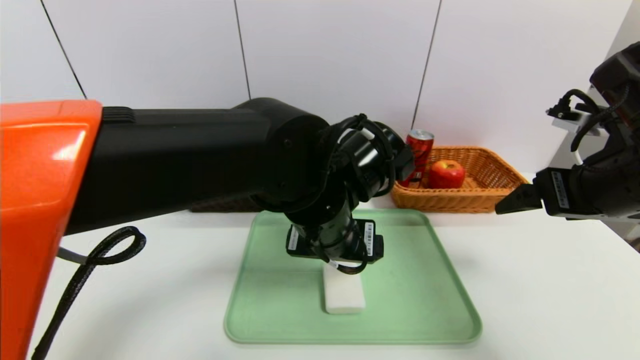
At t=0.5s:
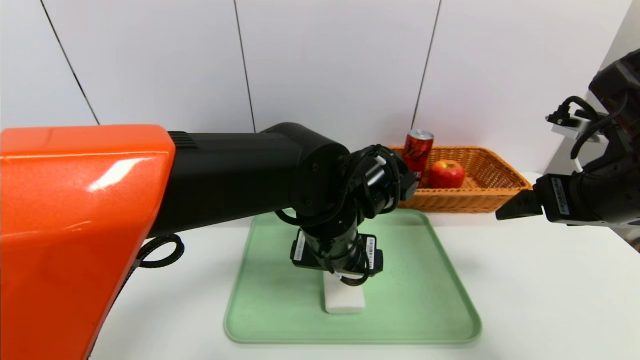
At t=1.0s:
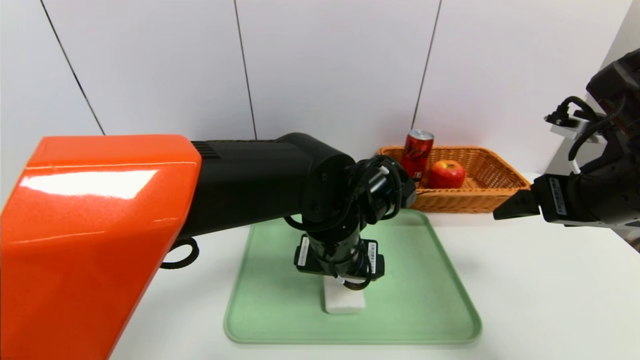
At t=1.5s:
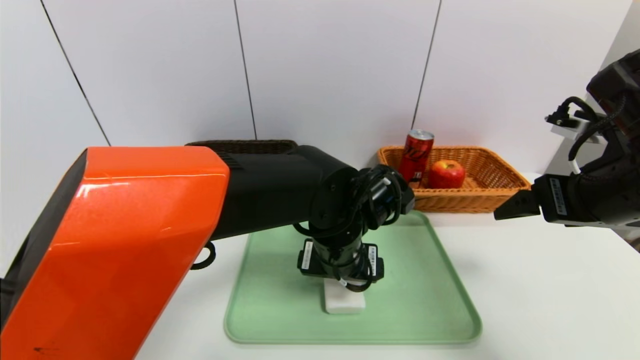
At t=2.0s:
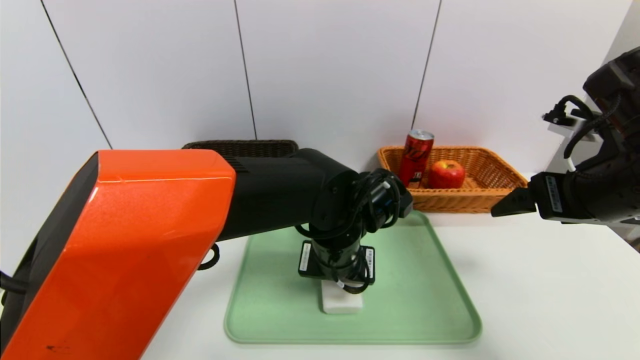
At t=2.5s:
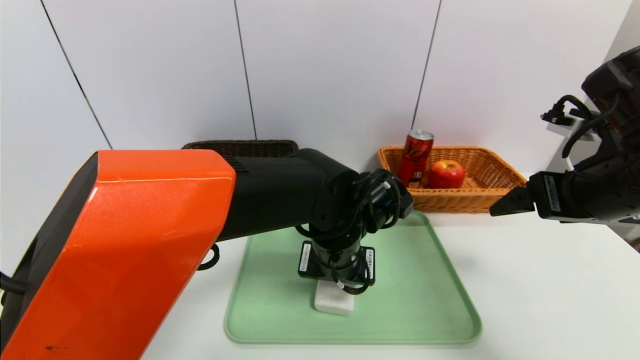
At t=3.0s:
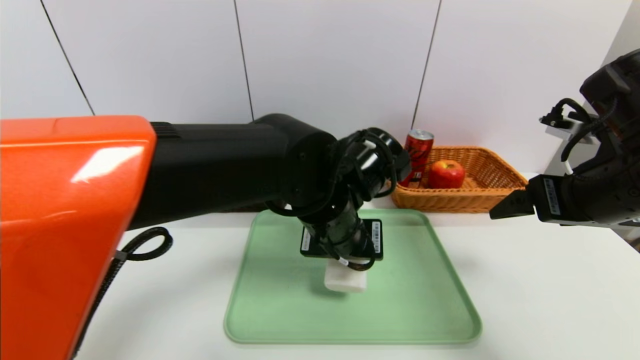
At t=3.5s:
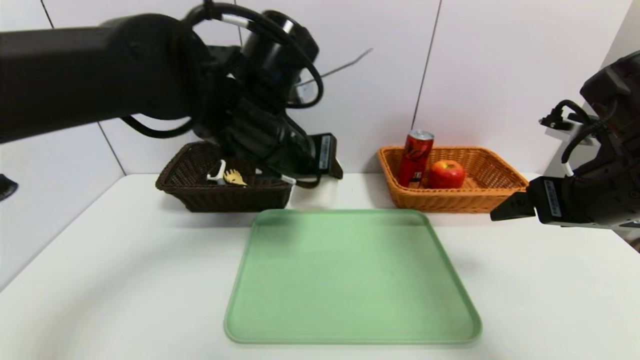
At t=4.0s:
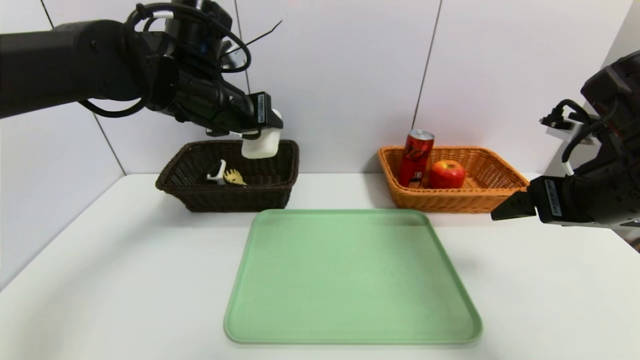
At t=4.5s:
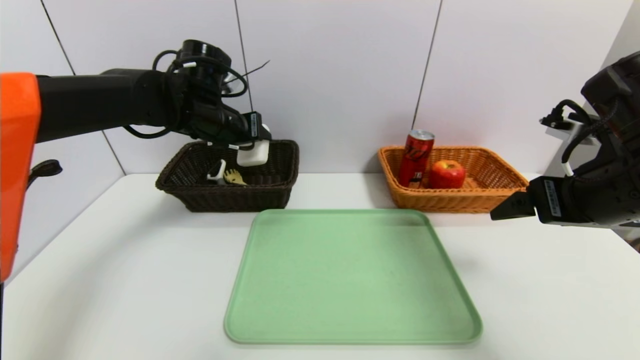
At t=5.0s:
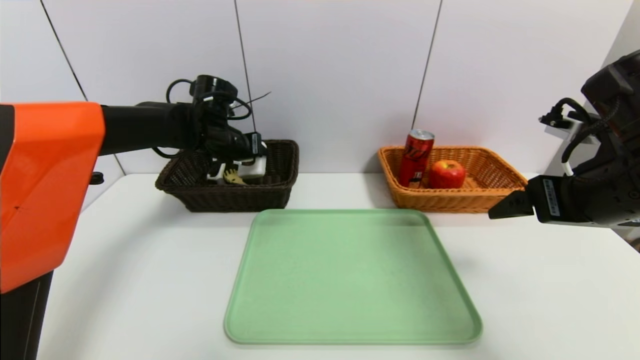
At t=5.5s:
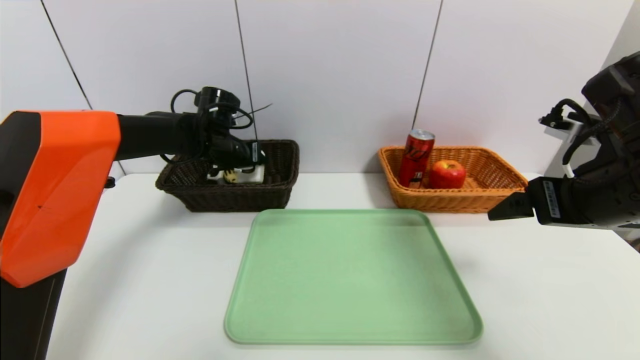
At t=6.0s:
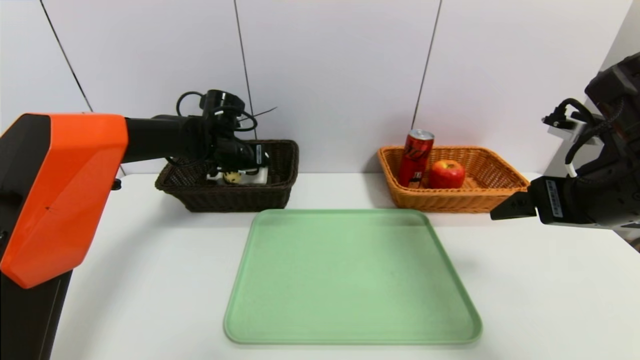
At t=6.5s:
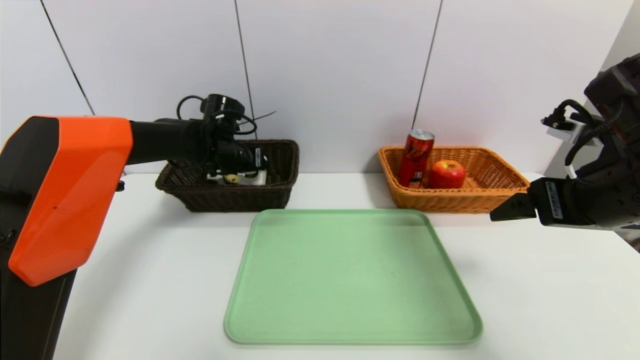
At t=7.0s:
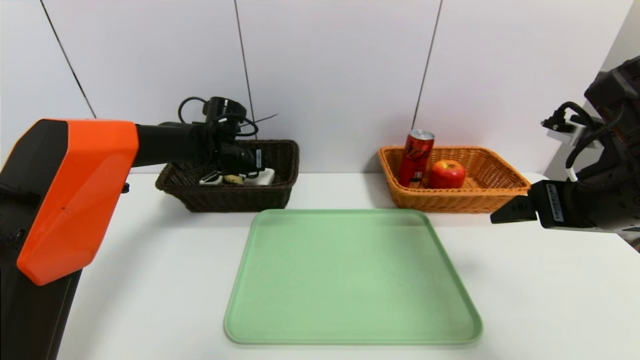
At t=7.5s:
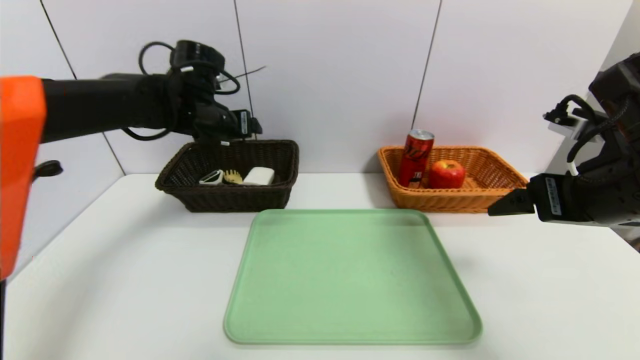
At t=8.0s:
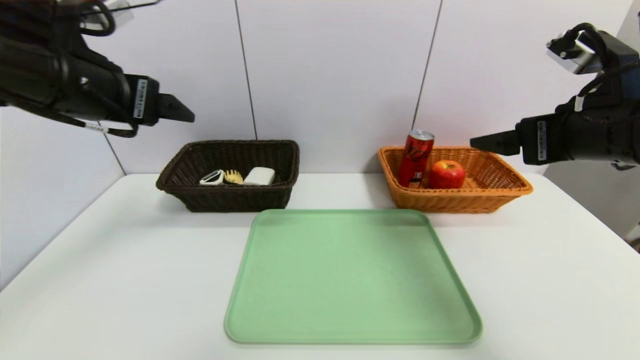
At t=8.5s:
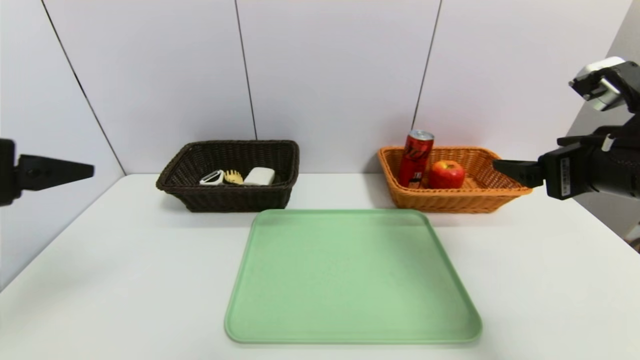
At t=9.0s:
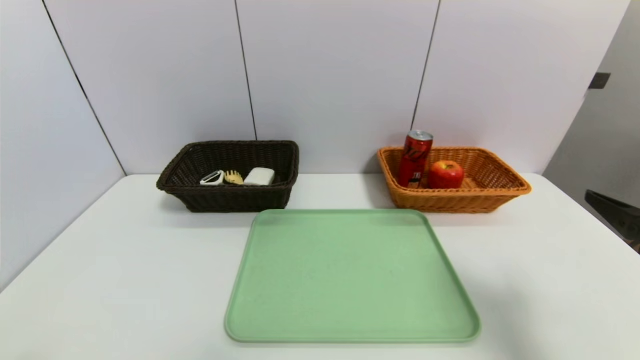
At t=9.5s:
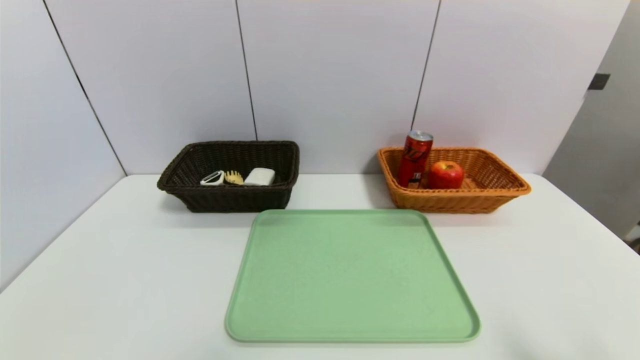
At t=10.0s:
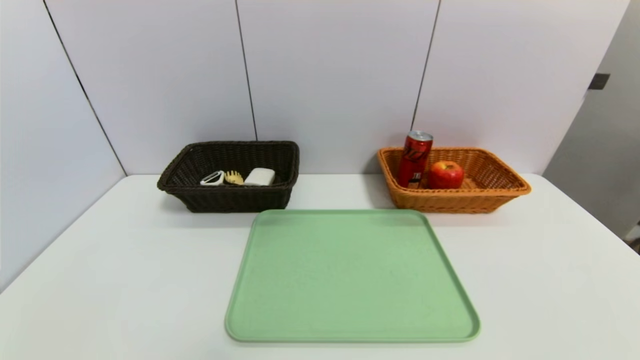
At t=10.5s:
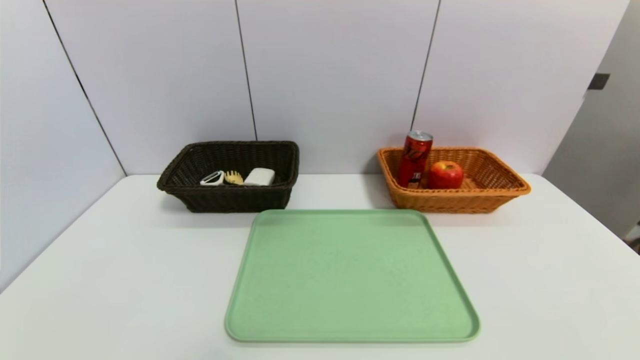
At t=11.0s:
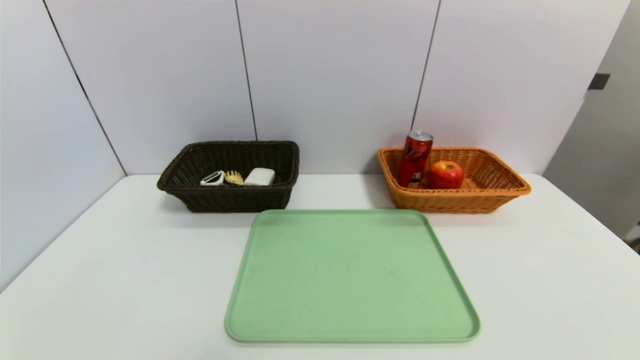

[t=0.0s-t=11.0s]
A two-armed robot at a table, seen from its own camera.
Task of the whole recording: place the food in the right basket with the right gripper, and place the non food items in the left basket with the left gripper.
Step, t=0.0s to t=7.0s: Grasp the soap and put it in the left basket.
t=0.0s to t=2.0s: The left gripper is displaced downward by some 5 cm, and closes its fingers.
t=2.0s to t=3.5s: The left gripper heads upward and to the left, covering about 15 cm.
t=3.5s to t=5.5s: The left gripper shifts some 25 cm forward, to the left and downward.
t=5.5s to t=7.5s: The left gripper goes about 10 cm upward, and opens up.
t=7.5s to t=9.0s: The left gripper goes roughly 40 cm backward; the right gripper goes some 10 cm backward and to the right.
t=9.0s to t=11.0s: The right gripper goes about 20 cm downward and backward.

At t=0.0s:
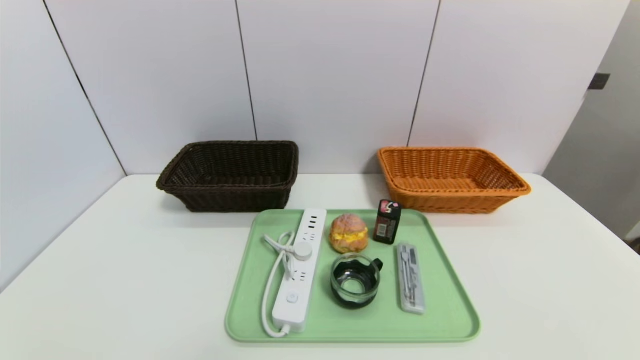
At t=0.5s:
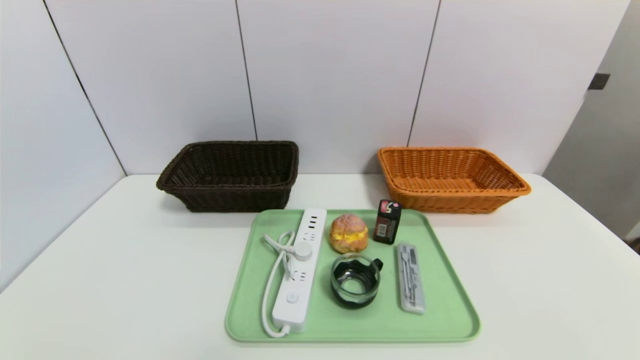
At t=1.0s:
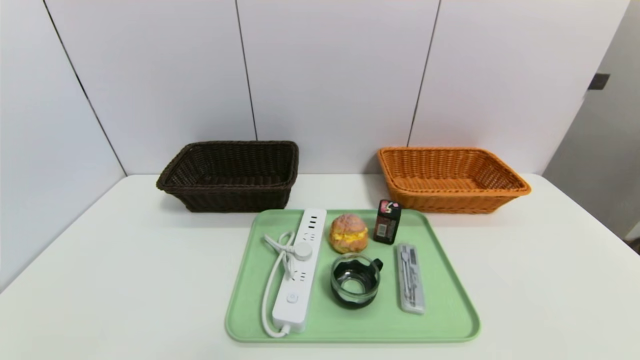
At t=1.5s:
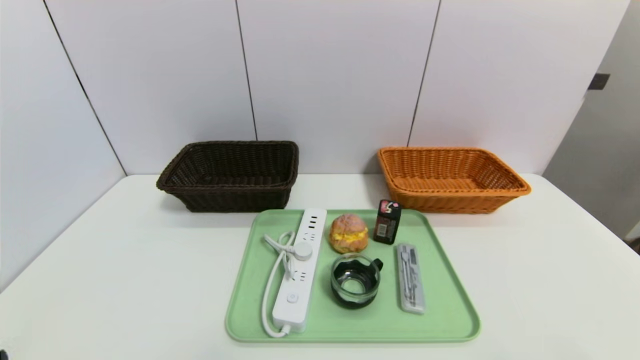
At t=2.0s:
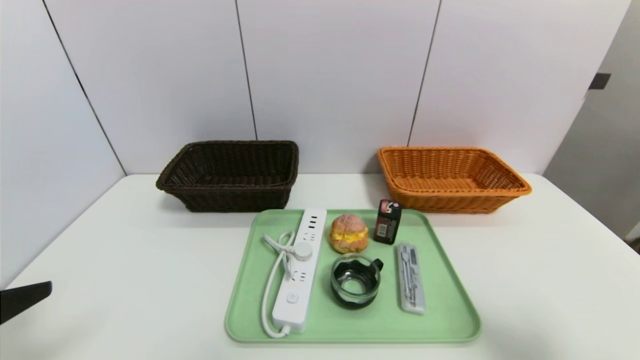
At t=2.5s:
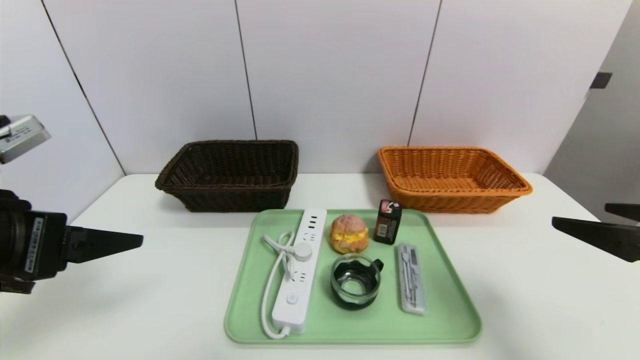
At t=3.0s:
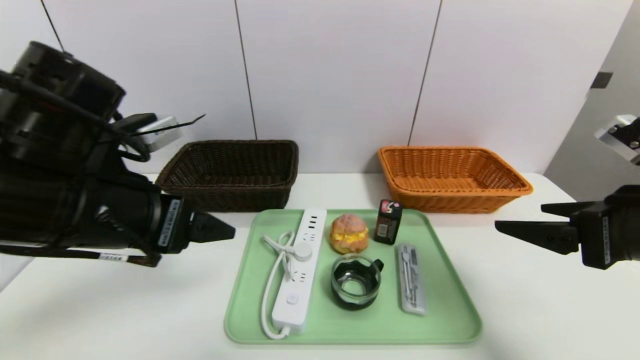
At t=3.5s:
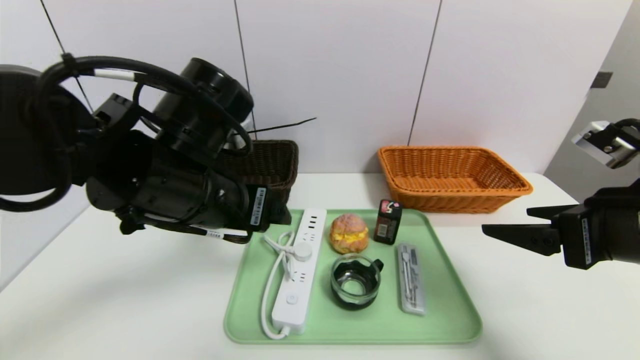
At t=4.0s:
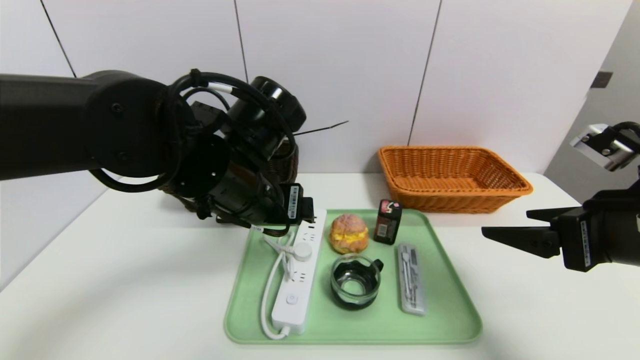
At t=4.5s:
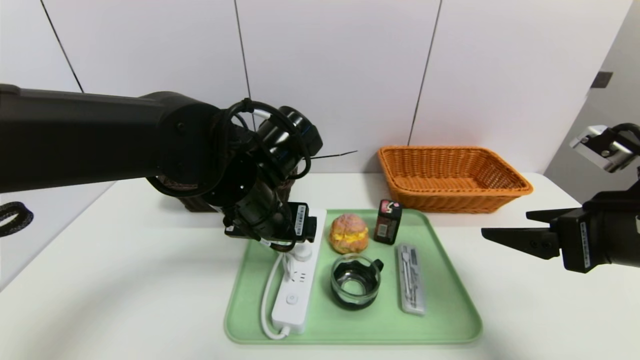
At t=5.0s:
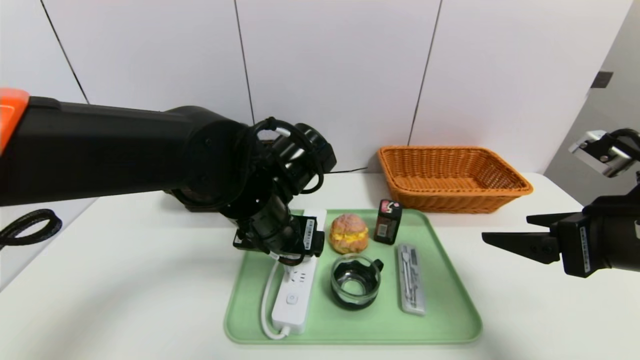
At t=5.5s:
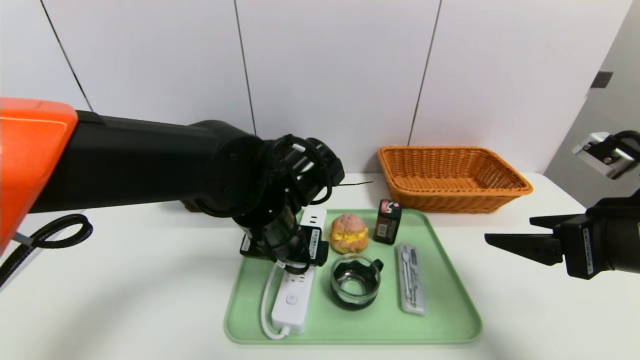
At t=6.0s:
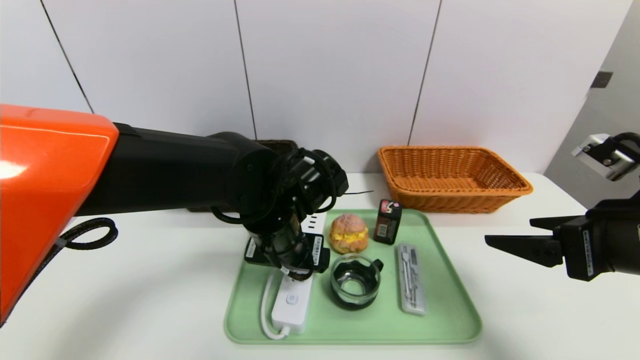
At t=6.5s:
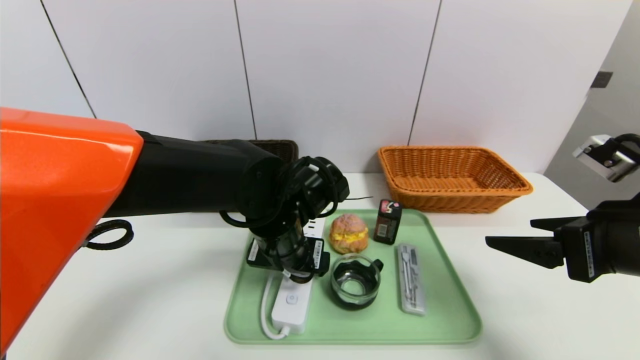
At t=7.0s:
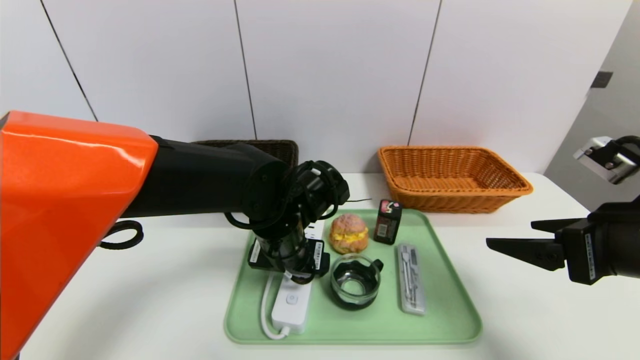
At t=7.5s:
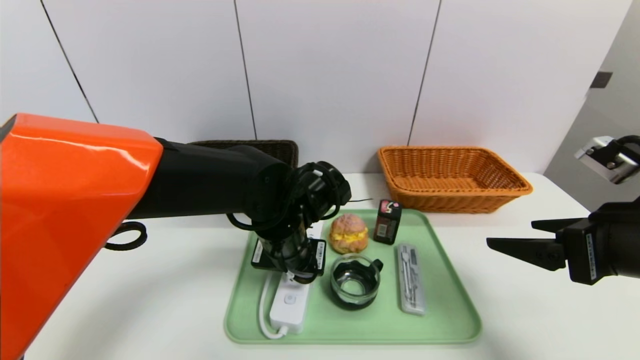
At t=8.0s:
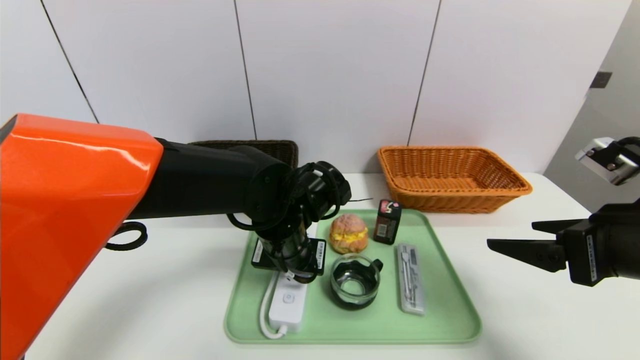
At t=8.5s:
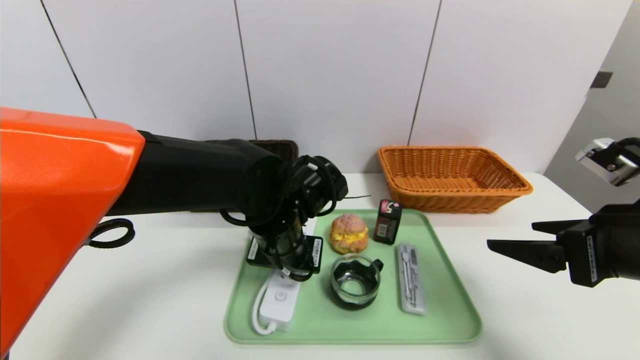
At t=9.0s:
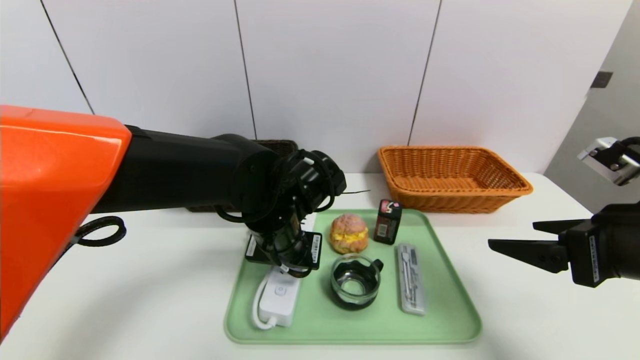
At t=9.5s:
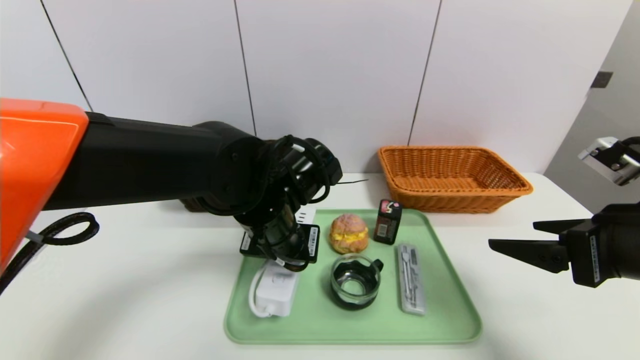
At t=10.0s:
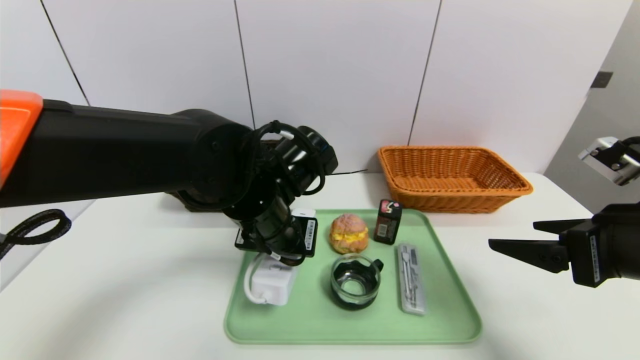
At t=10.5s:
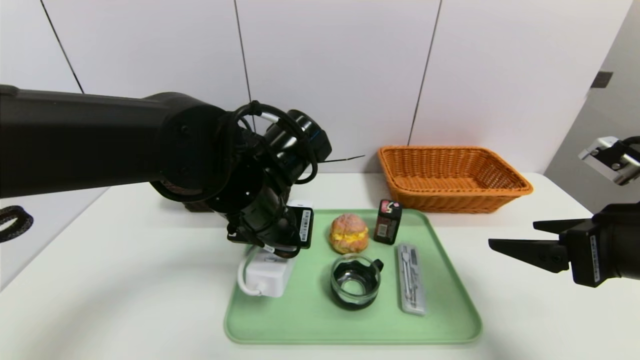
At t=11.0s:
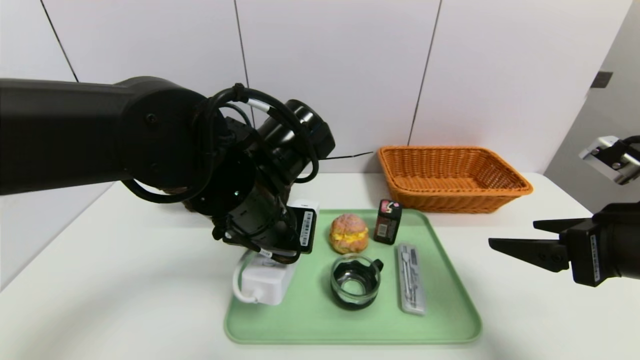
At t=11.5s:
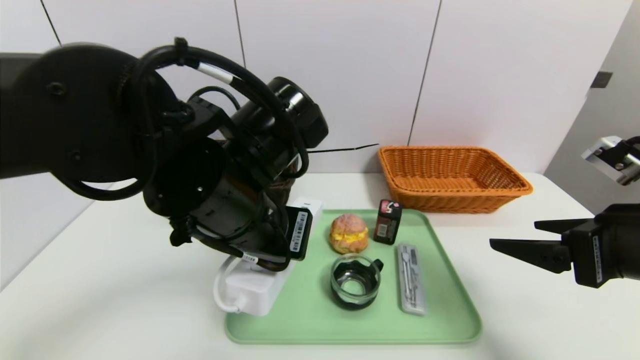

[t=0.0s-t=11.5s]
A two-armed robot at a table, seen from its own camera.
Task of the whole recording: place the food in the right basket with the right gripper, and place the non food items in the left basket with the left gripper.
t=0.0s to t=2.0s: The grippers both shift upward and forward by roughly 20 cm.
t=2.0s to t=4.0s: The right gripper goes approximately 10 cm forward and to the left, while the left gripper travels to the right and forward by roughly 30 cm.
t=4.0s to t=6.0s: The left gripper is displaced downward by approximately 5 cm.
t=6.0s to t=9.5s: The grippers move only a little.
t=9.5s to t=11.5s: The left gripper goes about 10 cm upward and backward.
